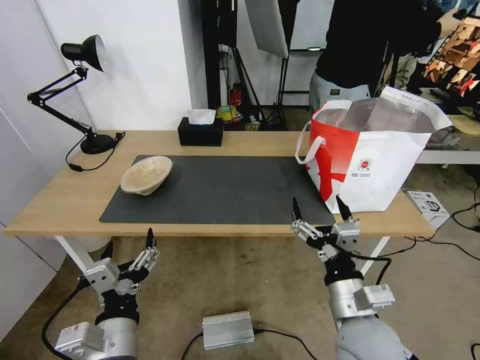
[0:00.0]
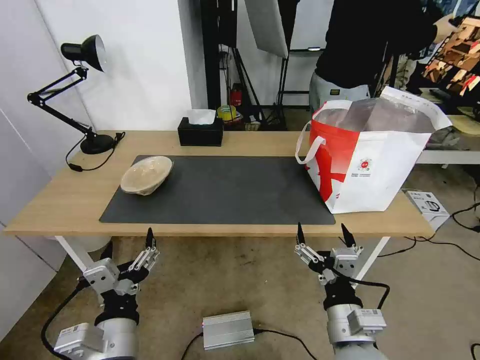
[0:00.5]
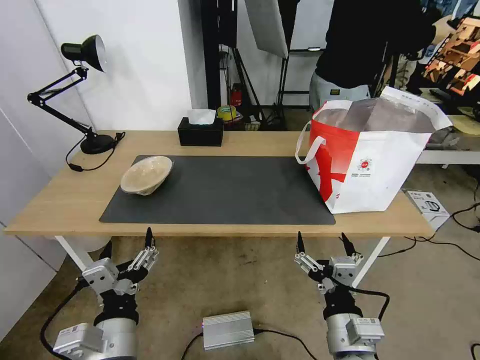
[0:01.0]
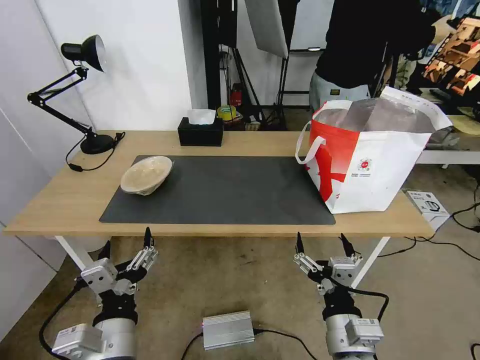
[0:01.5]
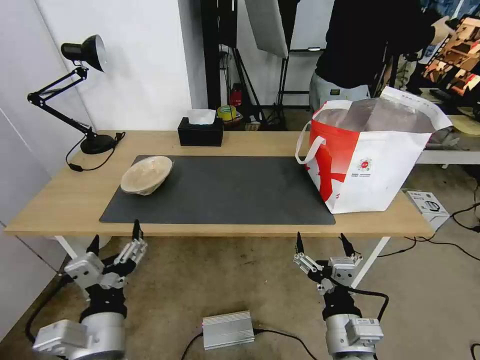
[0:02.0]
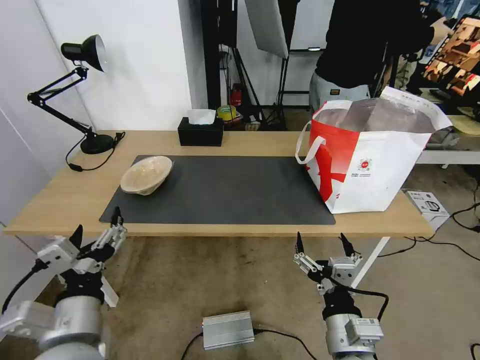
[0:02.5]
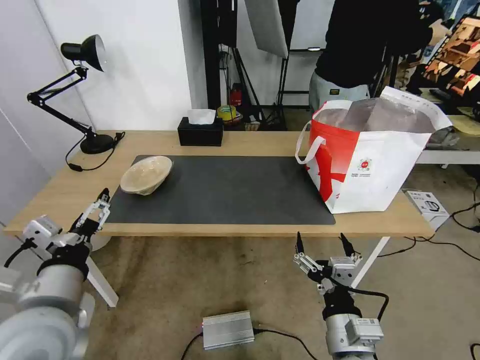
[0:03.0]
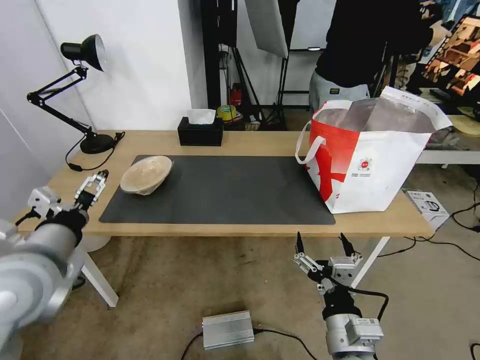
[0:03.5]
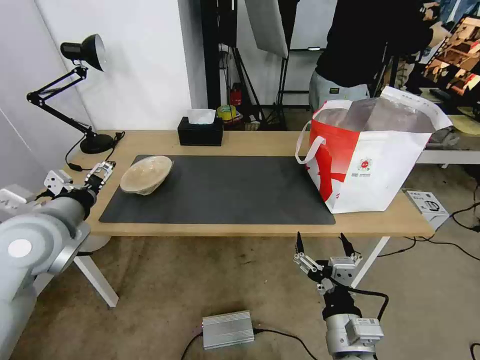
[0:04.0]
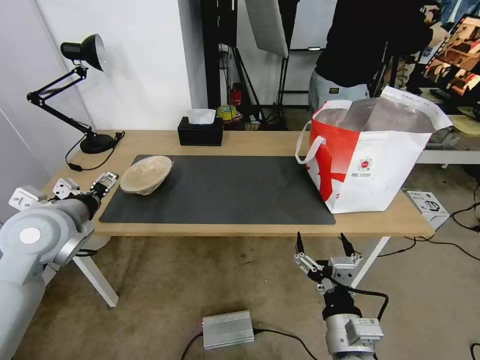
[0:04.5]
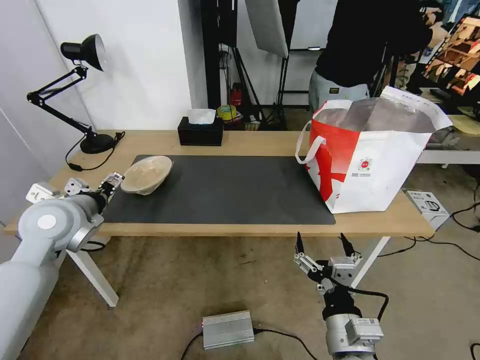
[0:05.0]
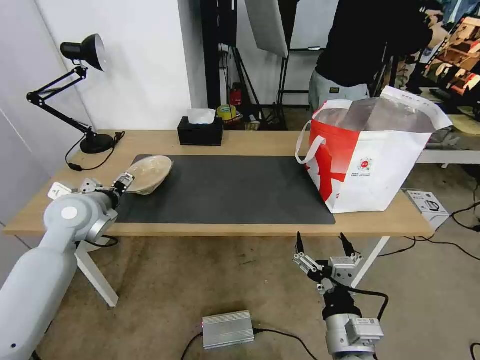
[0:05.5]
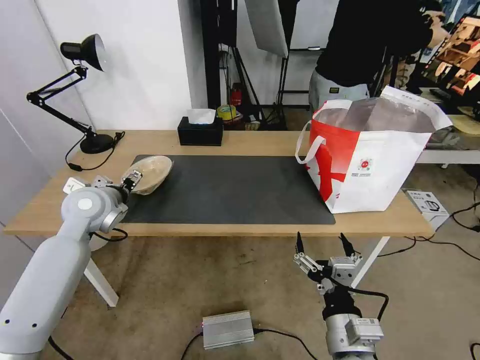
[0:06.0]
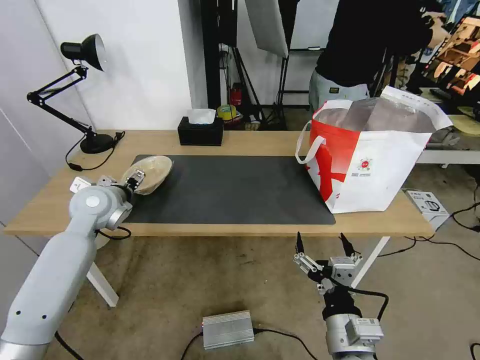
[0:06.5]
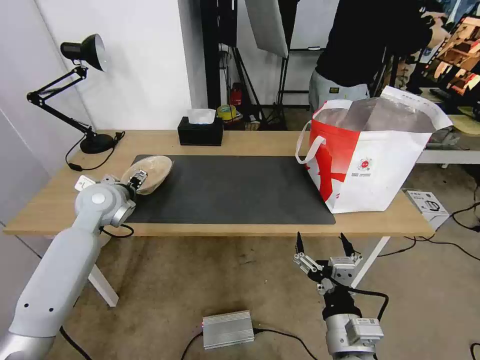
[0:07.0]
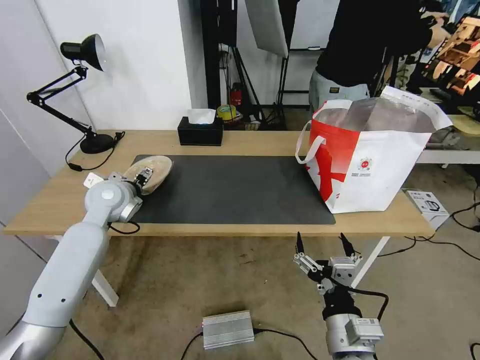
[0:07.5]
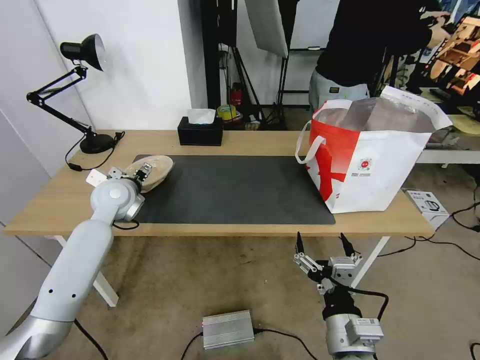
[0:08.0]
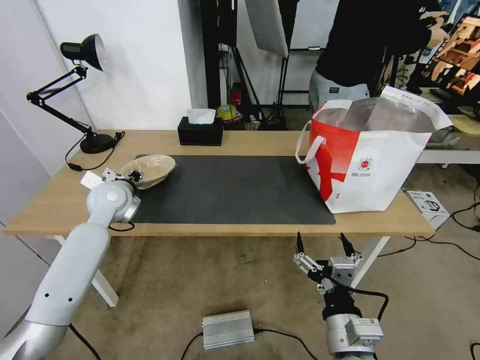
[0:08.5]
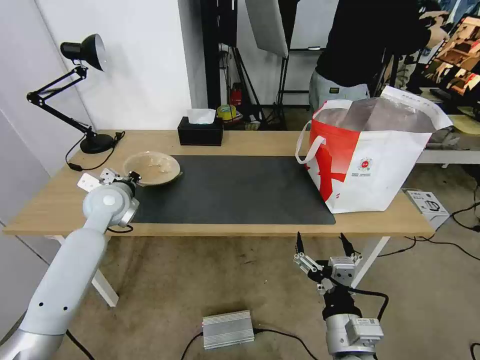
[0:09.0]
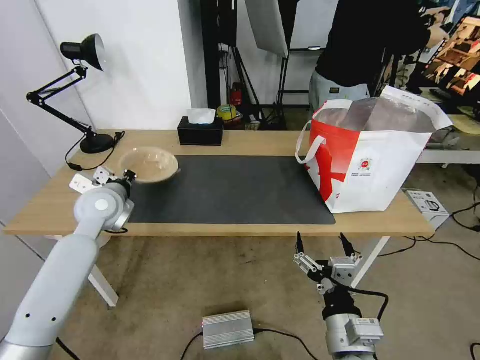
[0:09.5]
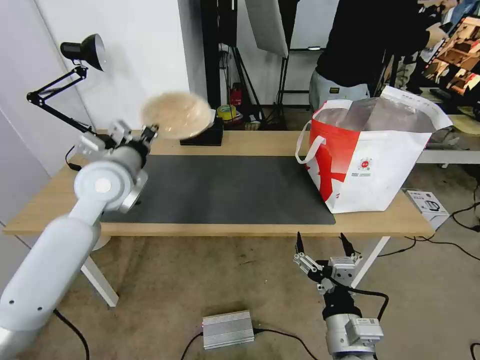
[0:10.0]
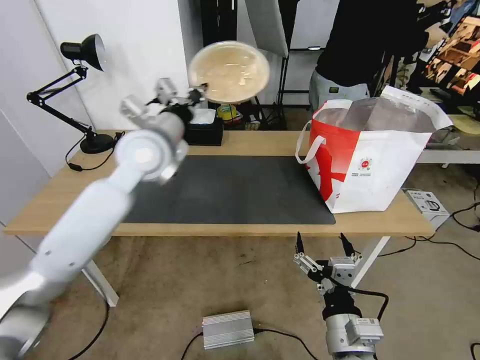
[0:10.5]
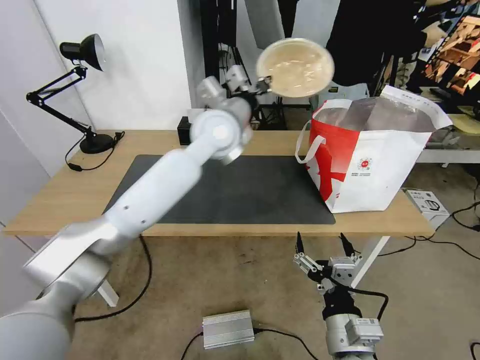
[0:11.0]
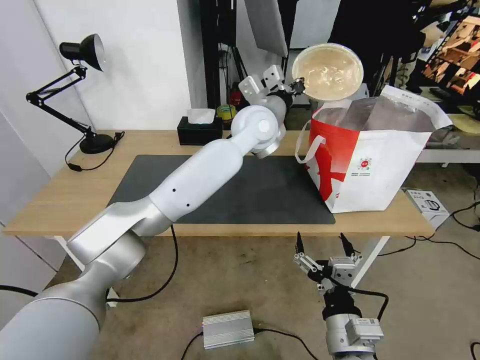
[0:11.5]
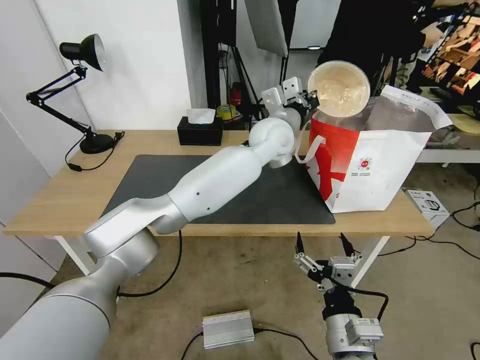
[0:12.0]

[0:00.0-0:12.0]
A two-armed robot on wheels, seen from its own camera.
Task of the whole recording: Pick up the trash from the table and place it into the takeout bag.
0.0 to 2.0 s: The right gripper goes approximately 5 cm backward.
2.0 to 4.0 s: The left gripper shifts roughly 25 cm forward, to the left and upward.
4.0 to 6.0 s: The left gripper travels forward and downward by approximately 15 cm.
6.0 to 8.0 s: The left gripper shifts about 5 cm forward.
8.0 to 10.0 s: The left gripper heads upward and backward, covering about 10 cm, and closes.
10.0 to 12.0 s: The left gripper moves to the right, some 30 cm.

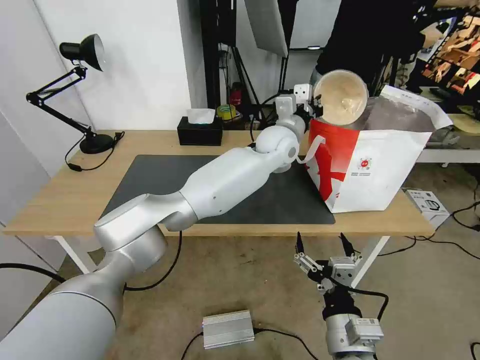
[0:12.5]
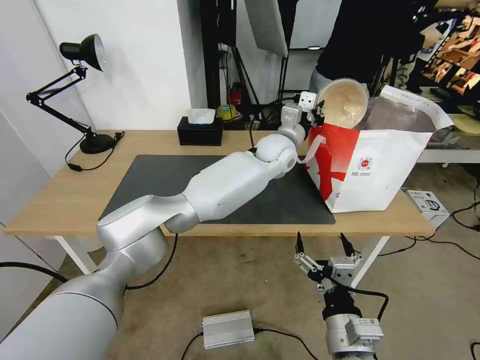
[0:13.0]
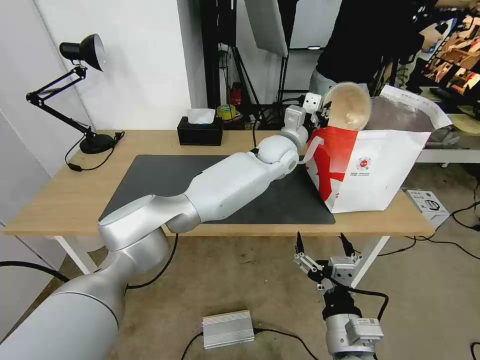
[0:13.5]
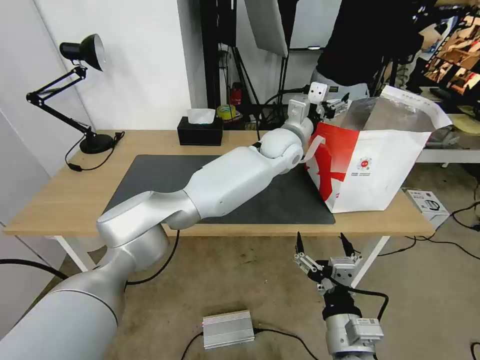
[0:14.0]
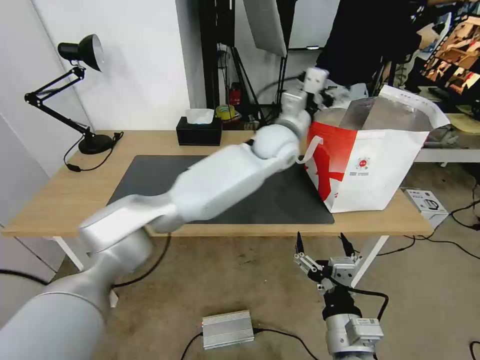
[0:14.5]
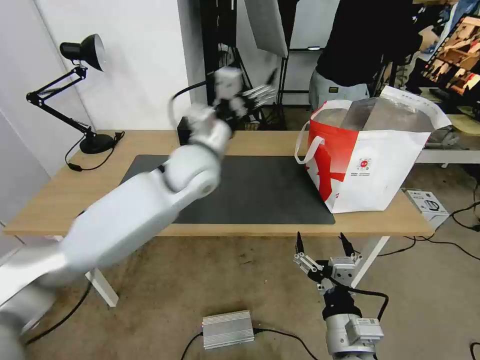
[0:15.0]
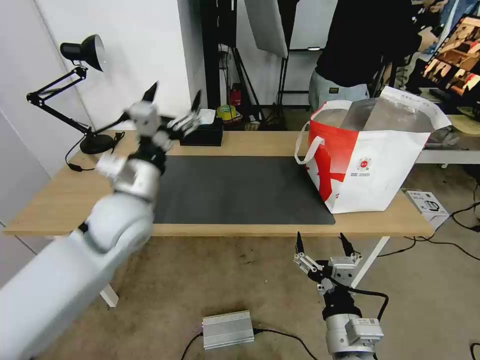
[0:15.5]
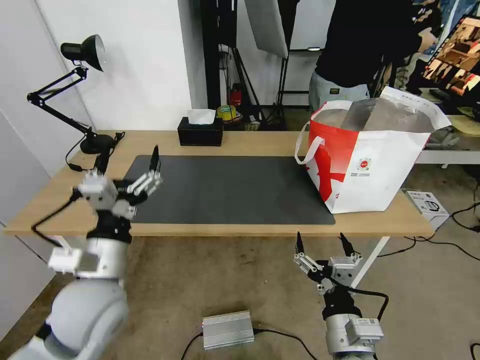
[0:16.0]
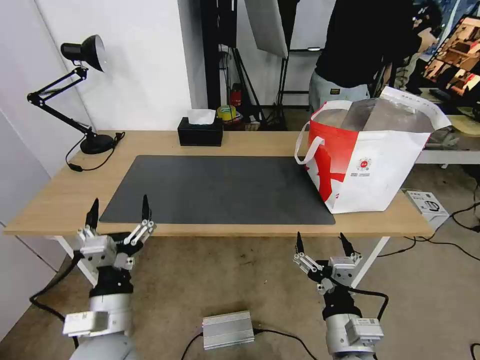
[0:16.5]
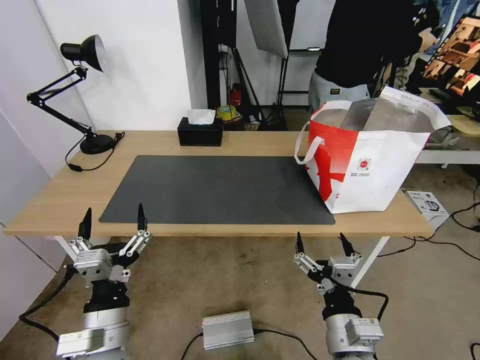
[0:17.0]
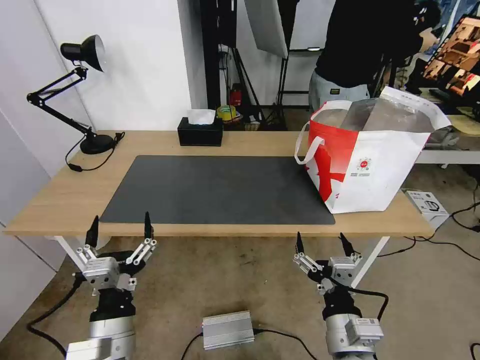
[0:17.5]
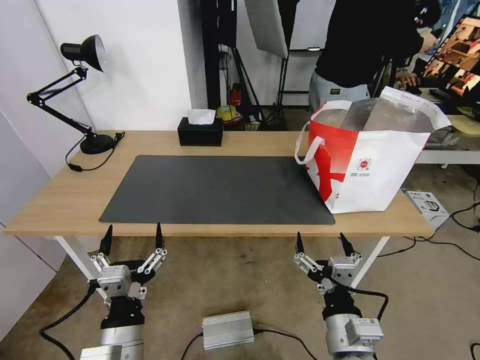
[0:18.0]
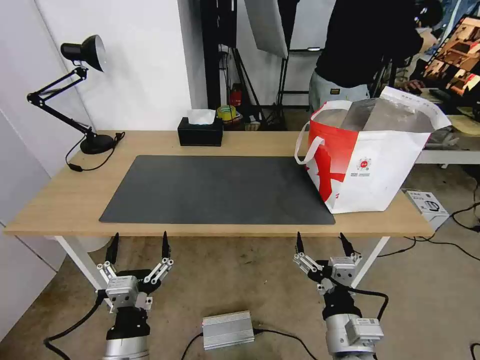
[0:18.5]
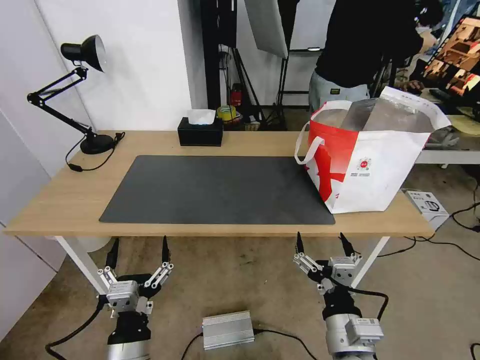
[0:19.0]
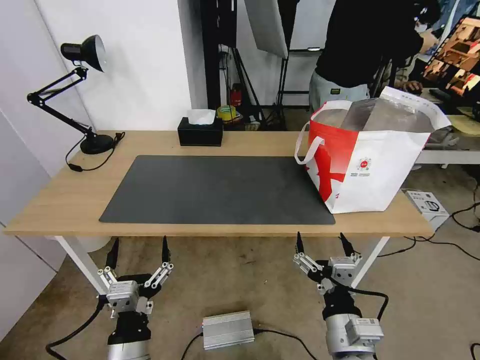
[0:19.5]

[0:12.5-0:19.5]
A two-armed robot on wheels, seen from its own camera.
Task of the whole recording: Pick up the trash from the table and place it into the takeout bag.
12.5 to 14.5 s: The left gripper opens up.
14.5 to 16.0 s: The left gripper is displaced backward and to the left by about 40 cm.
16.0 to 17.5 s: The left gripper goes approximately 15 cm backward and downward.
17.5 to 19.5 s: The grippers stay close to where they were, moving slightly.

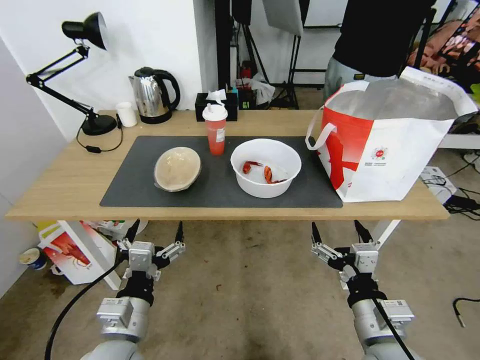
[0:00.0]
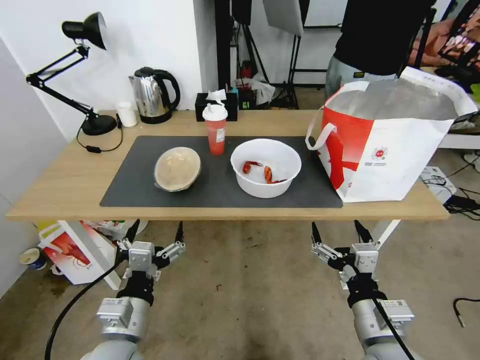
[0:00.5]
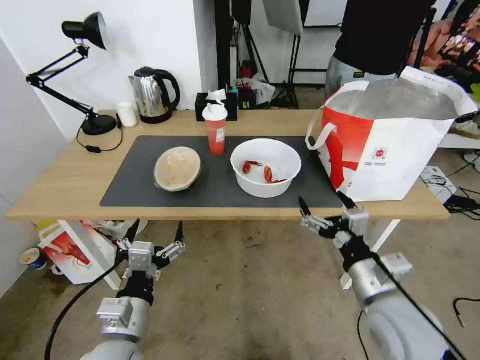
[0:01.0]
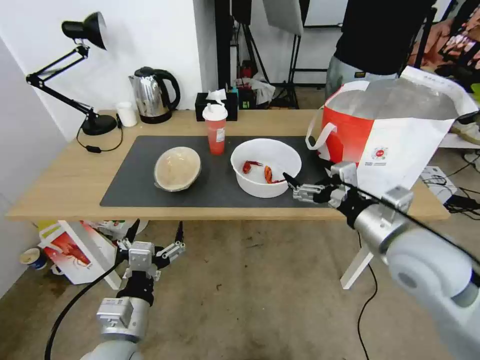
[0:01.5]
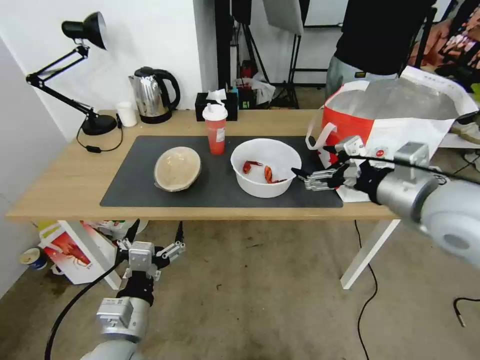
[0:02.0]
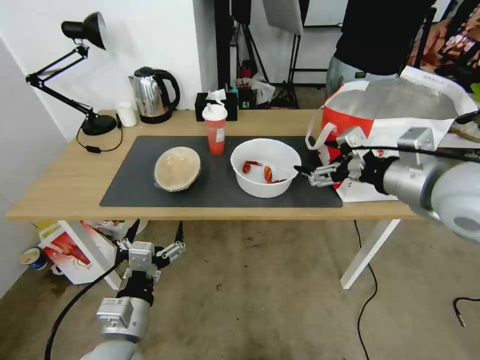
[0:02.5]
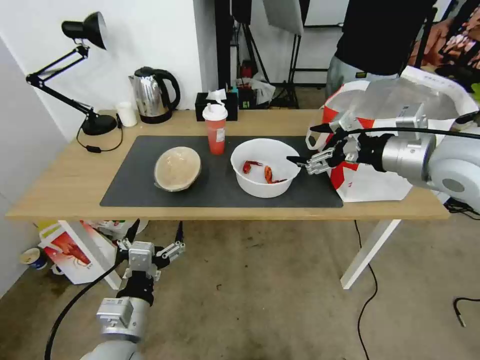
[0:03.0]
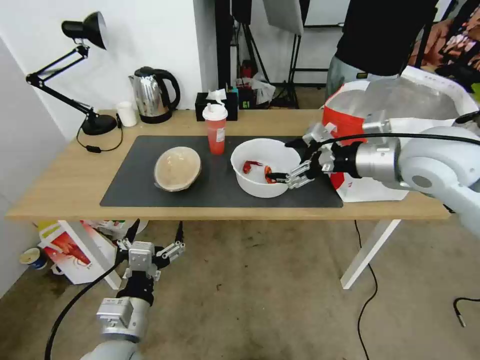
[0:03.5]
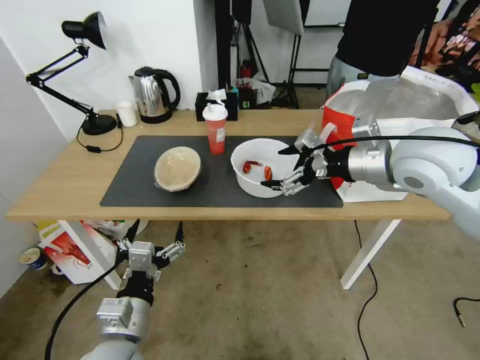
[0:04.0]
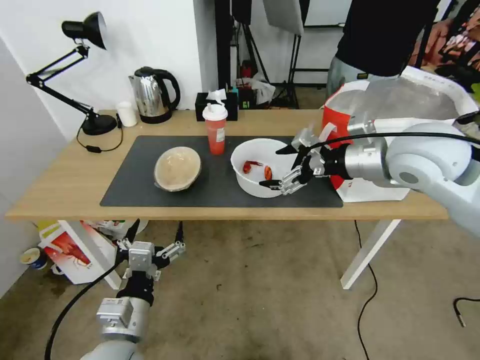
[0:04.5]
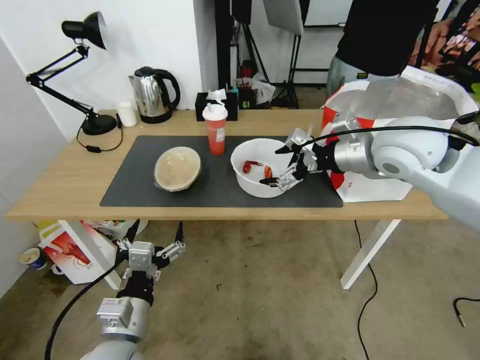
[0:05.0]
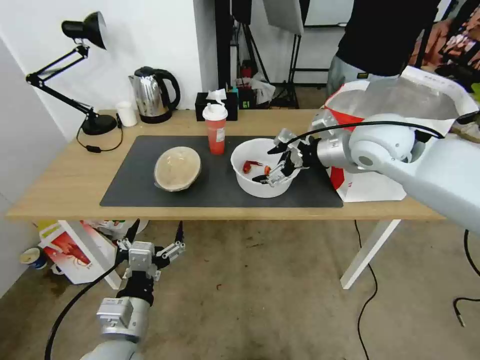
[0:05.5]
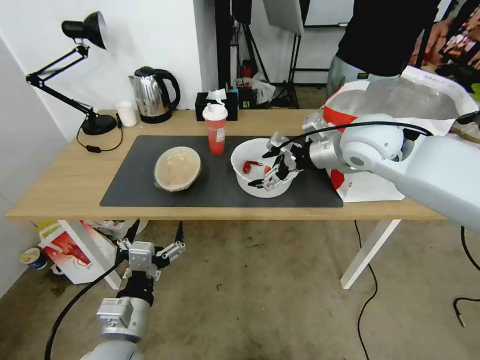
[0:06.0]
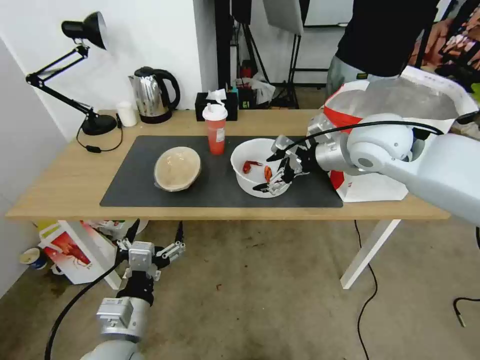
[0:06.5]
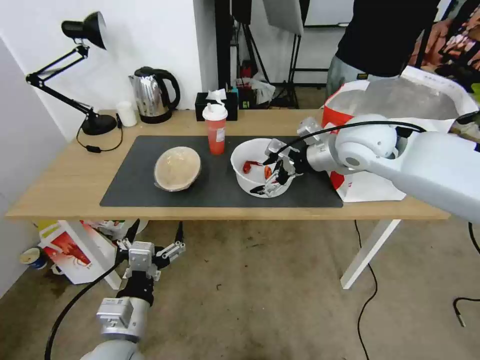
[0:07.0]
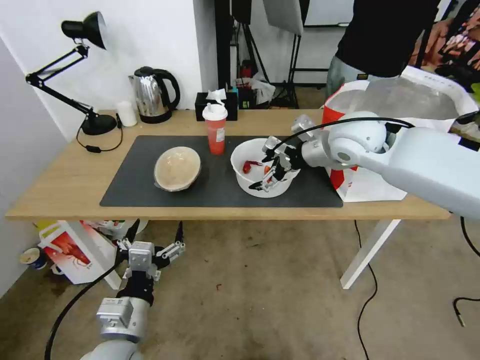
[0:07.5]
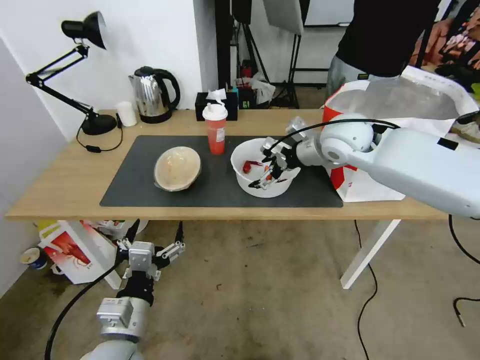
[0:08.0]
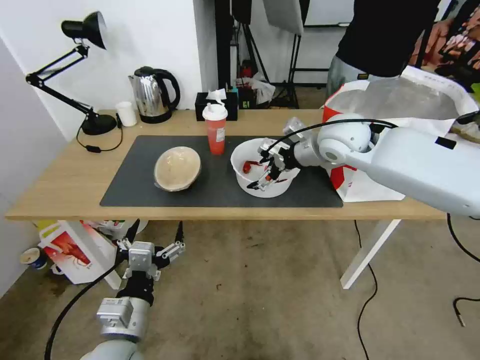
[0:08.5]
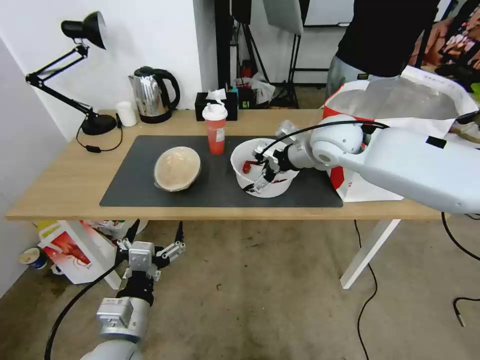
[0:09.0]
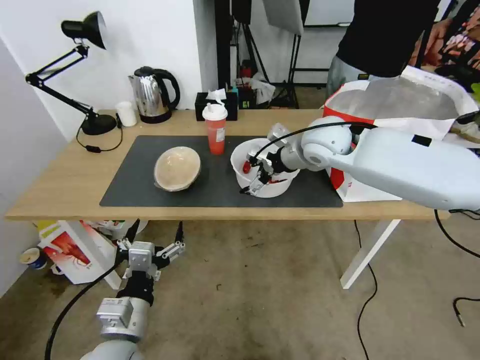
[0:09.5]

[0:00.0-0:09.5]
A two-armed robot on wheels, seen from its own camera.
Task of the whole recording: Pick up the trash from the table and place it into the takeout bag.
2.0 to 4.0 s: The right gripper moves forward, roughly 10 cm.
4.0 to 5.5 s: The right gripper travels forward by approximately 5 cm.
5.5 to 7.5 s: There are only small adjustments of the grippers.
7.5 to 9.5 s: The right gripper changes place by approximately 5 cm.
